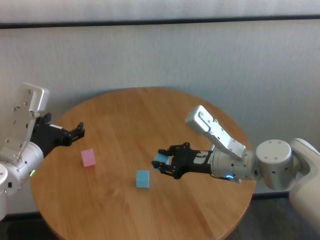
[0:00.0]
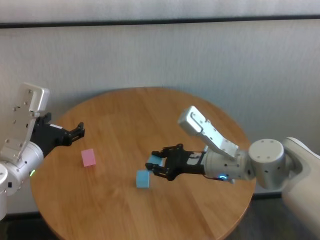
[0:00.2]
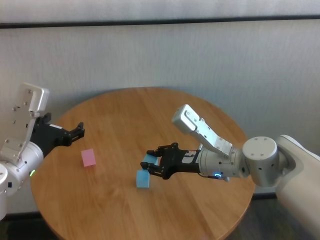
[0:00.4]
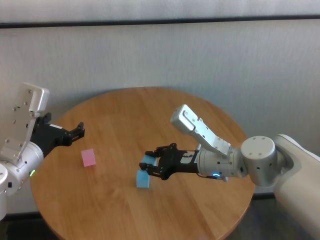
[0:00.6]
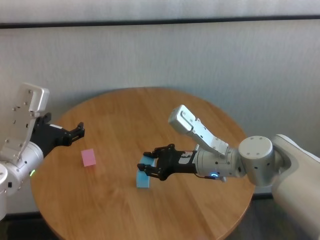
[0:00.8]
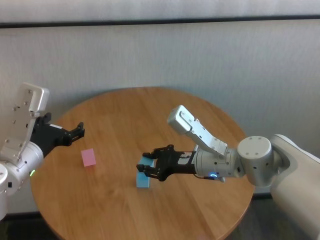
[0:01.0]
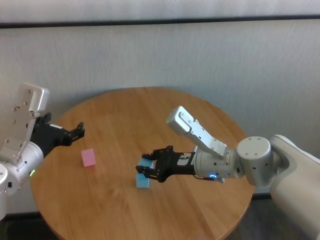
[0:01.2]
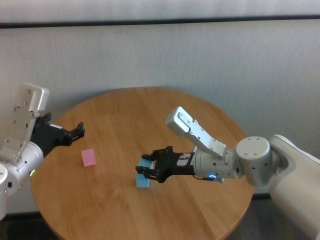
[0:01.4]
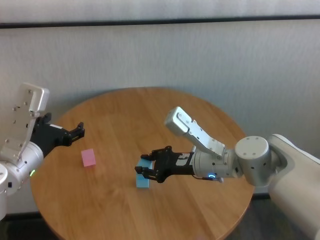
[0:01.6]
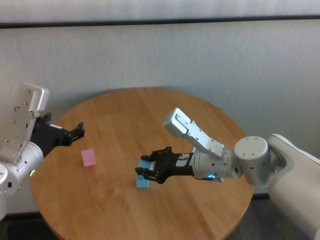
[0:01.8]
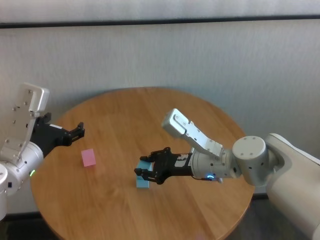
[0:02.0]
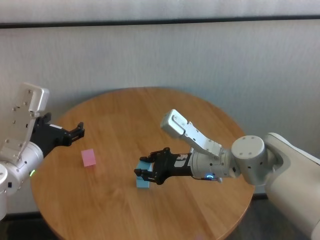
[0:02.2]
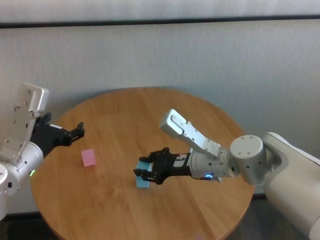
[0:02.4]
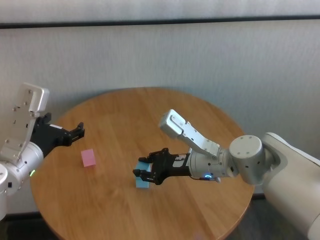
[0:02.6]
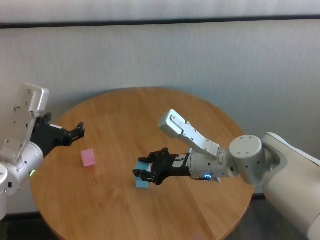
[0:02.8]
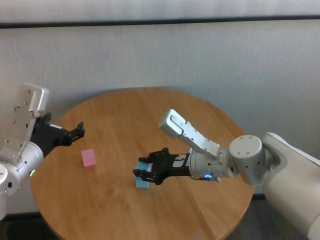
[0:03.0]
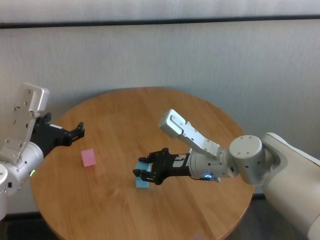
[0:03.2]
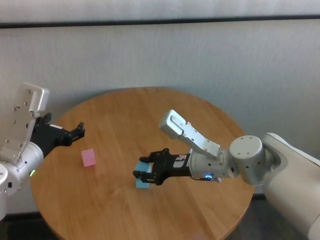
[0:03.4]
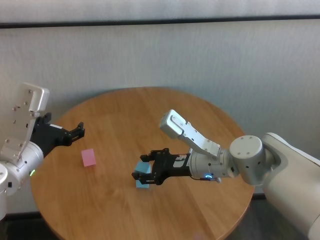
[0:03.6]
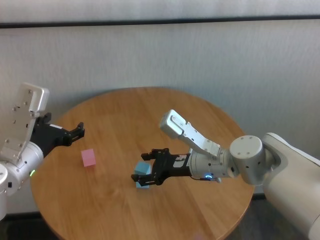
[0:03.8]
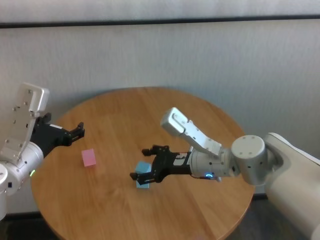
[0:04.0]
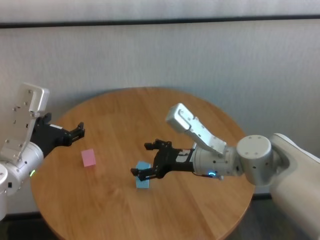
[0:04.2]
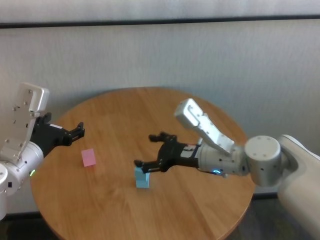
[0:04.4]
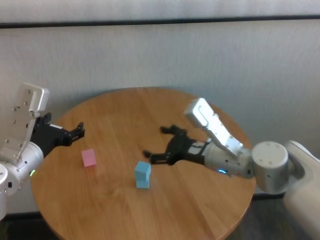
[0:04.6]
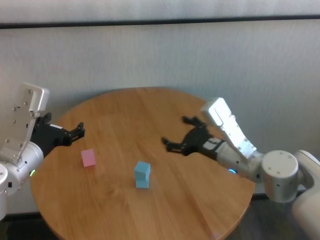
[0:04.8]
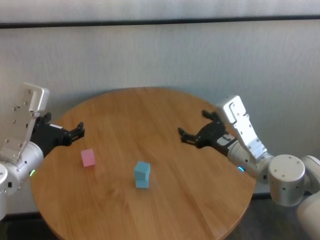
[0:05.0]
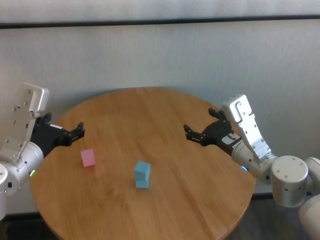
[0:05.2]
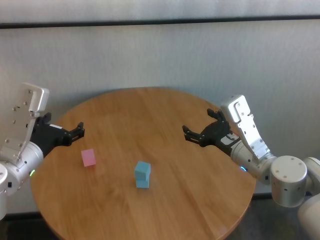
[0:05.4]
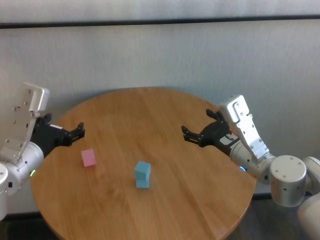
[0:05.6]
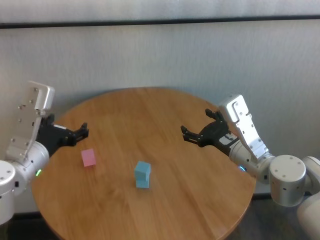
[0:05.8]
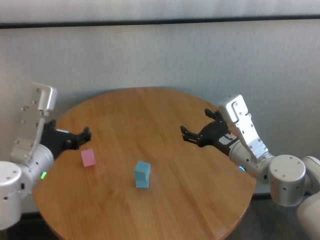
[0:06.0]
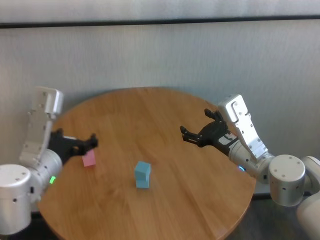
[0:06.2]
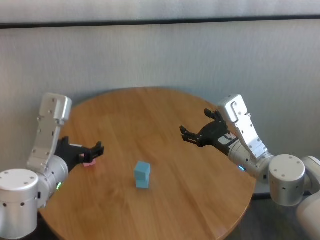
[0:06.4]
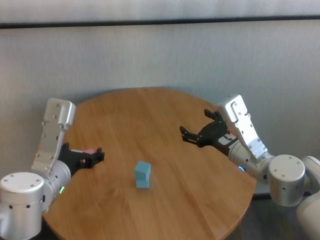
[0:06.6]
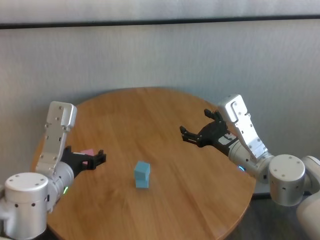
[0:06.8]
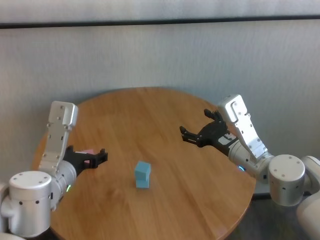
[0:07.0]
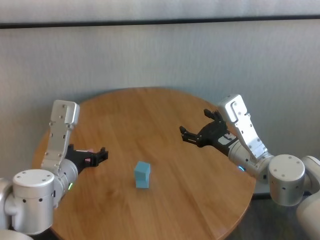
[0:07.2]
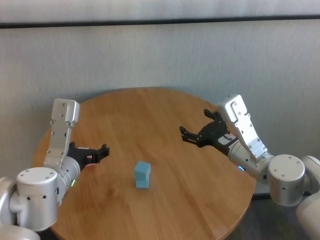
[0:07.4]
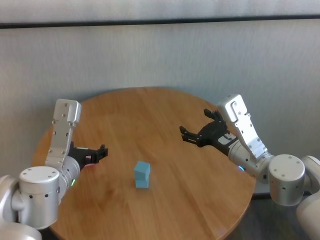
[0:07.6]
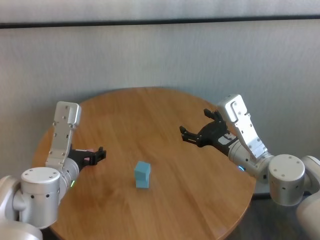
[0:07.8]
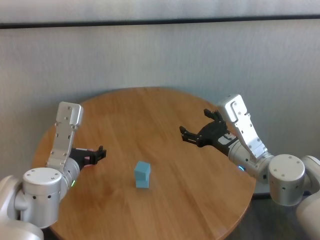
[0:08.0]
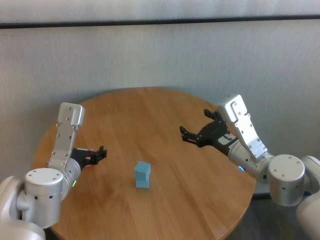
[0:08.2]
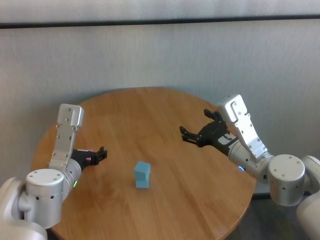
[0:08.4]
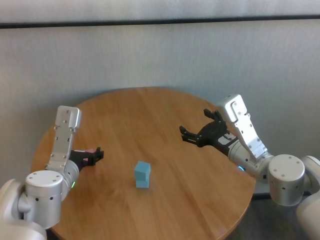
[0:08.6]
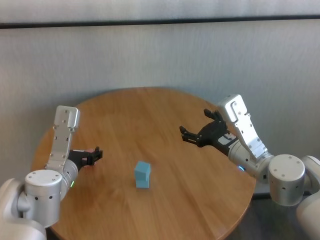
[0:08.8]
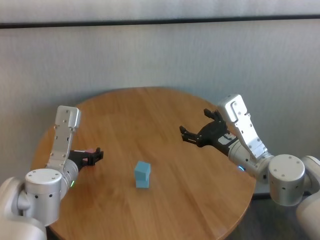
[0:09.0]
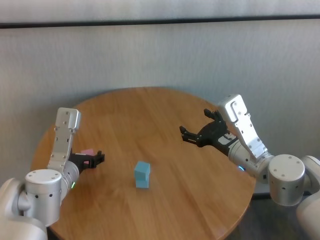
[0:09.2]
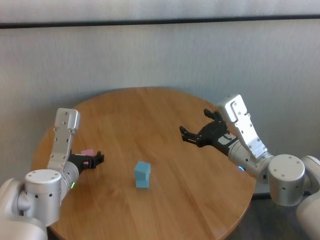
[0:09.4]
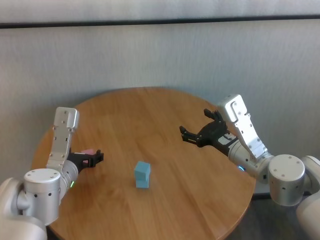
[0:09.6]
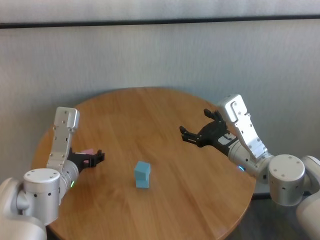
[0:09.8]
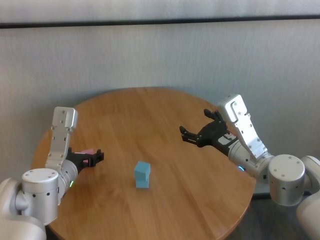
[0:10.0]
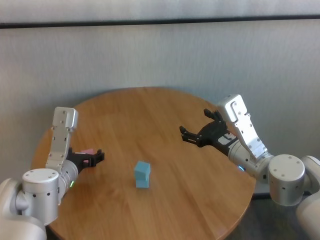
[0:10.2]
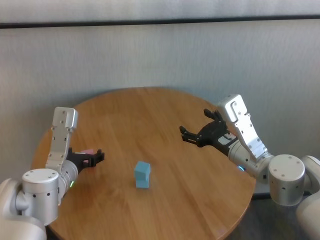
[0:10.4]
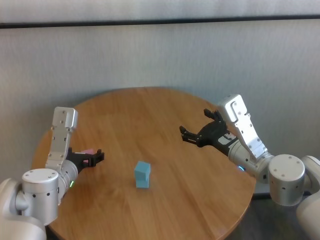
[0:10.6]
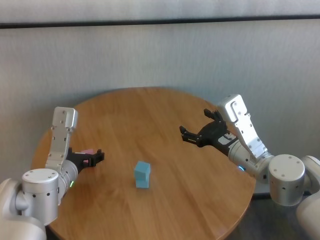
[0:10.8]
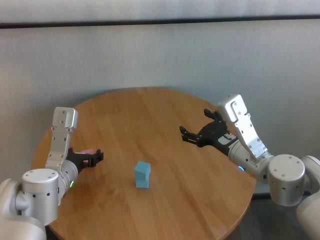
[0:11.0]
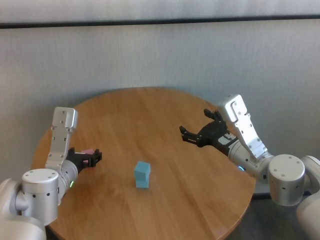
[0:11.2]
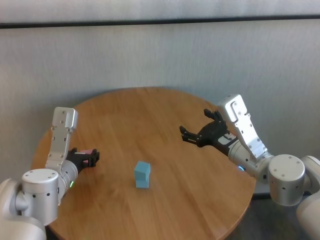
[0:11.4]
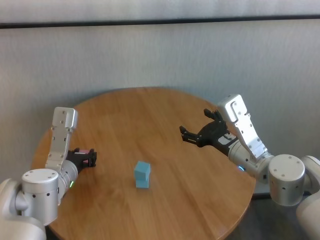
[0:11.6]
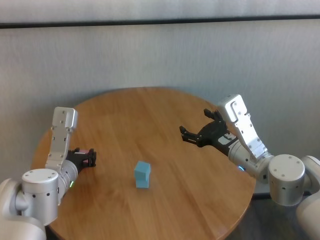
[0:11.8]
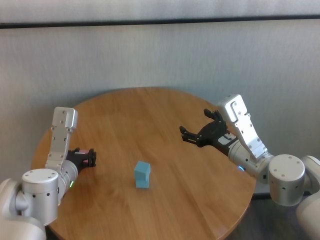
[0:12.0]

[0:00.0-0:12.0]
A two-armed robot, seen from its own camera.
Task of the whole recording: stack building blocks on the table.
Step, 0:00.0 to 0:03.6: Place the blue building block on the blue building blocks with right gripper.
Step, 0:03.8 to 0:11.6: Grasp the pink building block with left gripper.

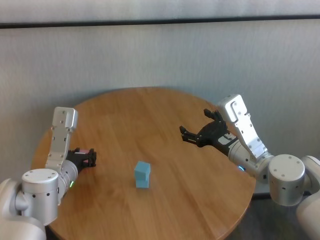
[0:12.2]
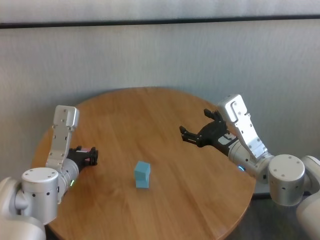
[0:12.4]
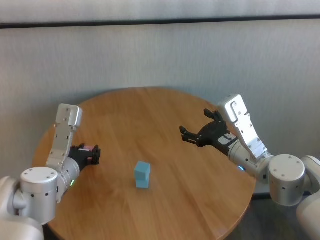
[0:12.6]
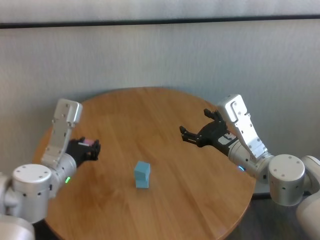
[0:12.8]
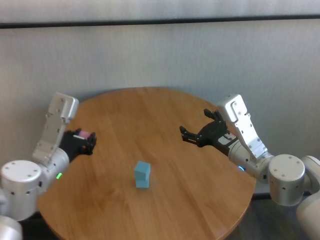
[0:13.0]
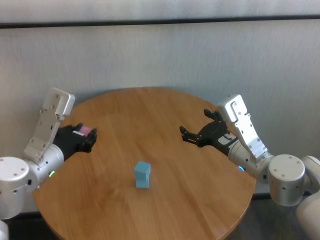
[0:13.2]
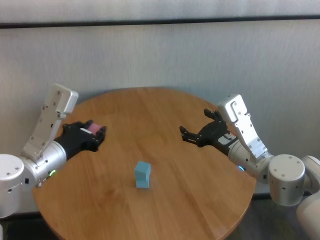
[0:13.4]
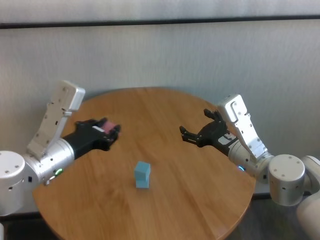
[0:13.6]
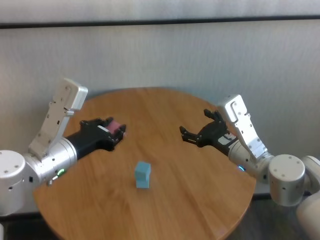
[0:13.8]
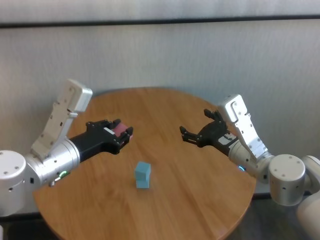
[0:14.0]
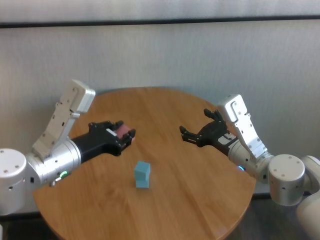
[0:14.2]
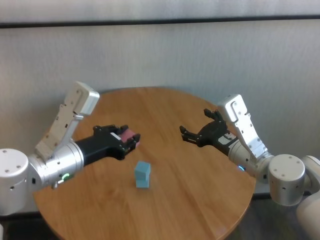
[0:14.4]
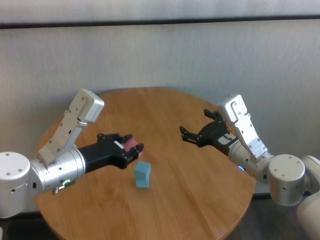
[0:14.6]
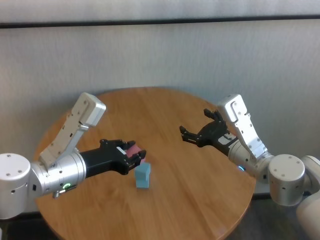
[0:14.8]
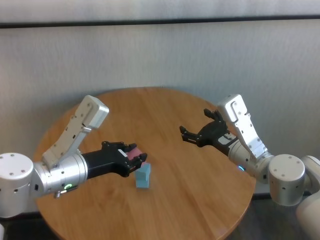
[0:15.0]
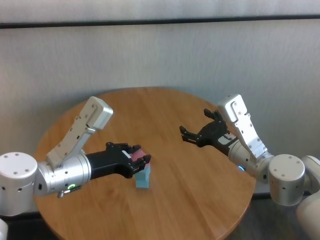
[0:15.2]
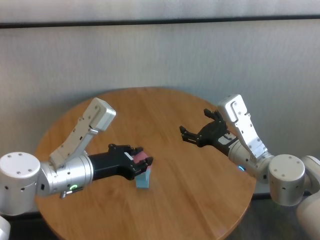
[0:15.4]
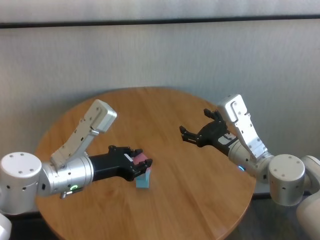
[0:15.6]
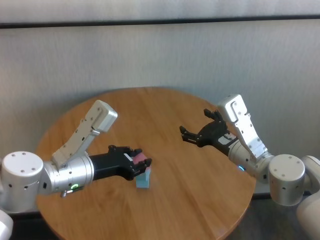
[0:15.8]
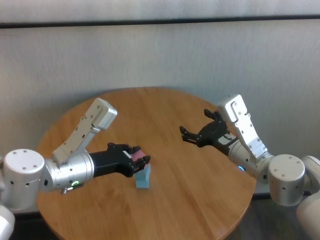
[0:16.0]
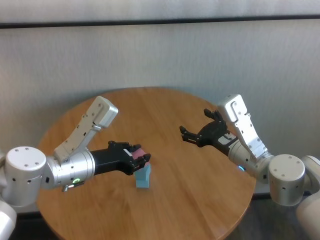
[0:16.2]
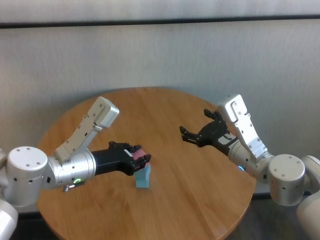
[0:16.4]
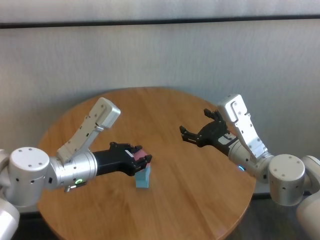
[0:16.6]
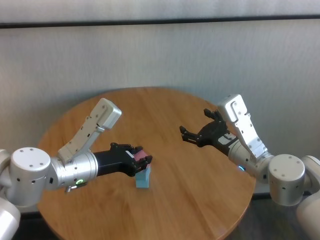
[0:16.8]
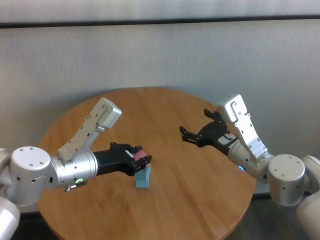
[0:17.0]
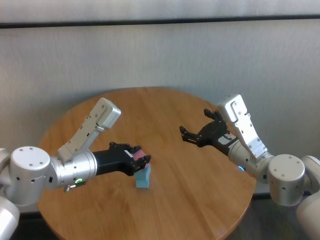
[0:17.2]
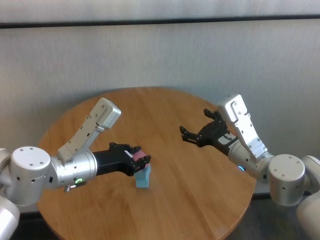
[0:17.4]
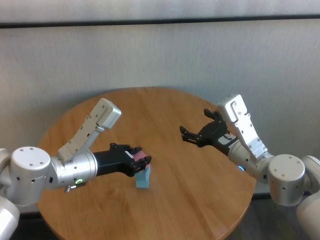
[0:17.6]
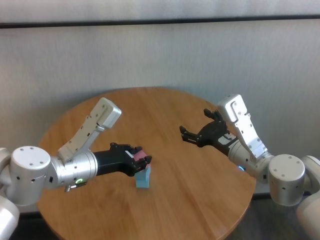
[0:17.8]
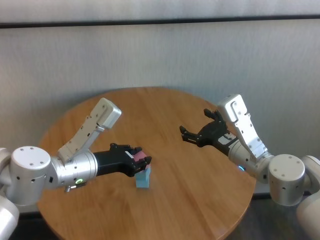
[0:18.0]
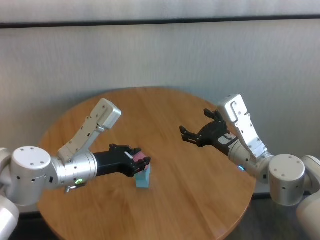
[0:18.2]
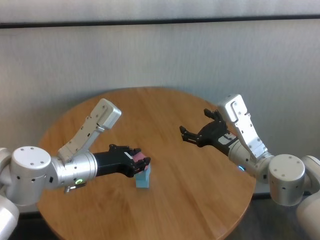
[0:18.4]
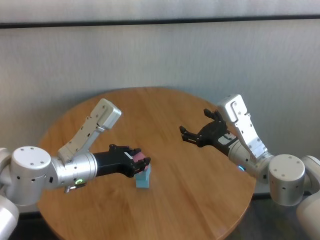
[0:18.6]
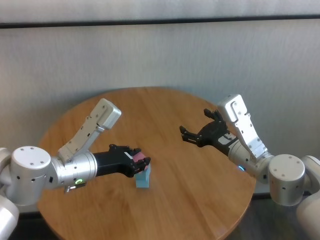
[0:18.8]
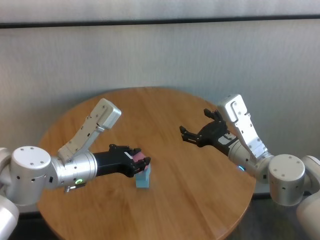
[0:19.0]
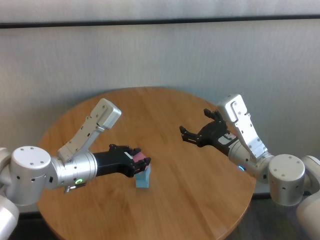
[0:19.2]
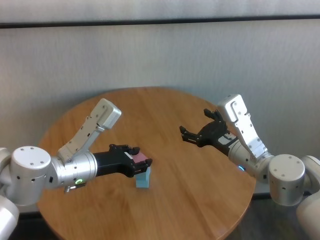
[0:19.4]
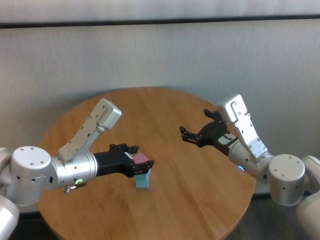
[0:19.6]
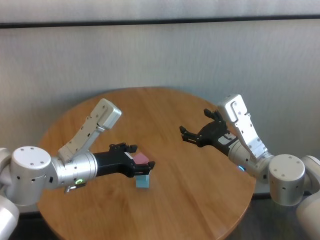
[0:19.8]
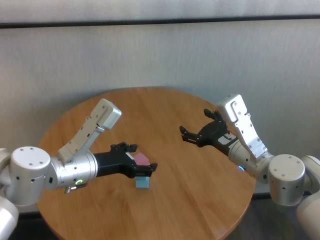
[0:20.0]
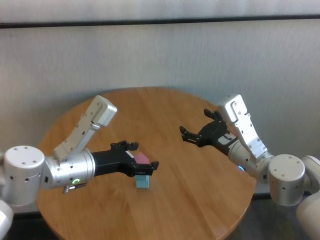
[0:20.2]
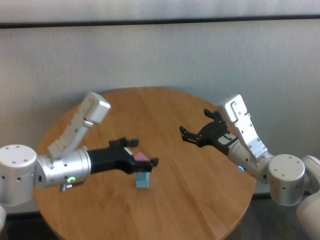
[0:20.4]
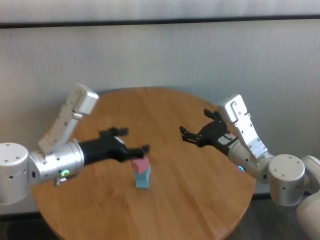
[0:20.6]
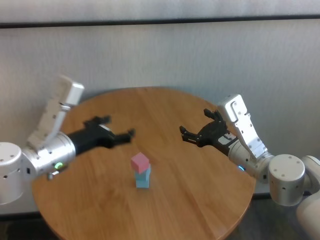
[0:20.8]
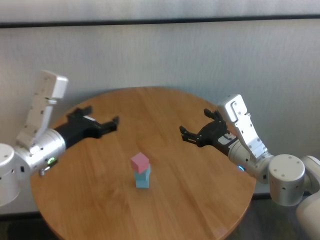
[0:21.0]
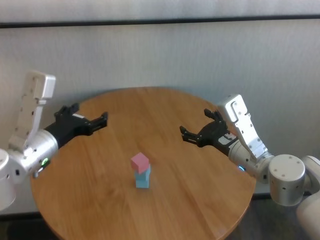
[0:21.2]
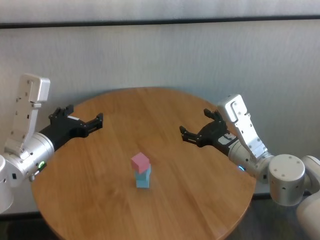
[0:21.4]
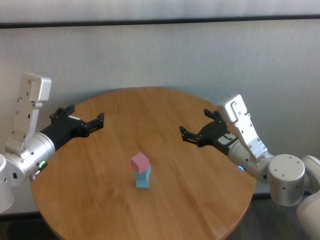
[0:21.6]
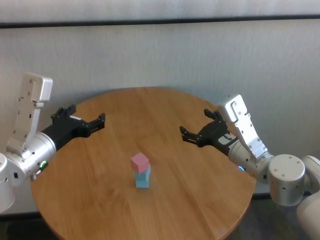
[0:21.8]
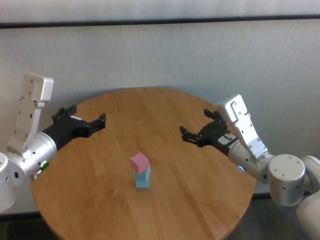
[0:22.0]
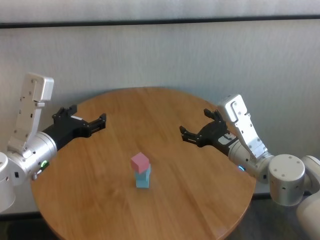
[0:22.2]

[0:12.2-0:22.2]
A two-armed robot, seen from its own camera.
Task of the whole recording: stack building blocks on the table.
Step, 0:12.2 to 0:19.4: Place the pink building block on the blue building blocks with left gripper.

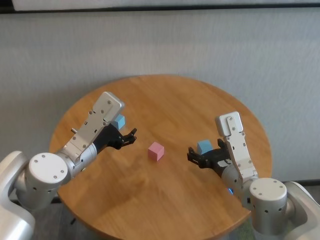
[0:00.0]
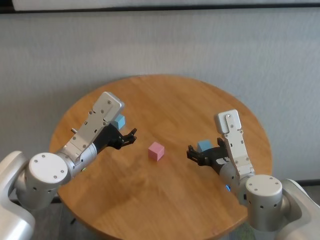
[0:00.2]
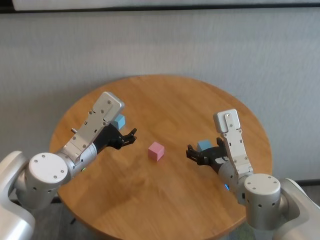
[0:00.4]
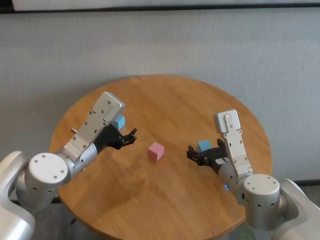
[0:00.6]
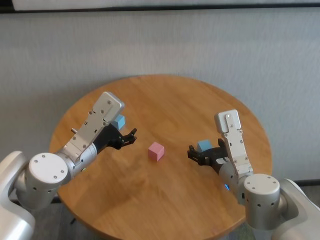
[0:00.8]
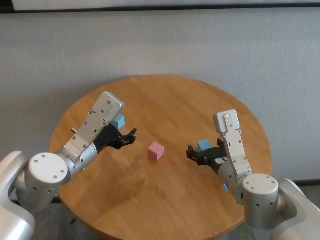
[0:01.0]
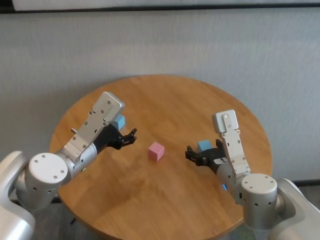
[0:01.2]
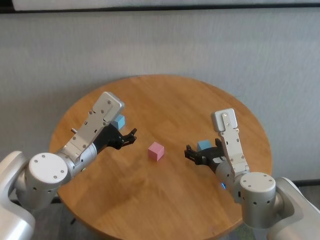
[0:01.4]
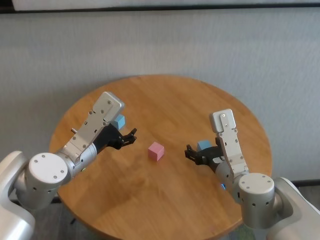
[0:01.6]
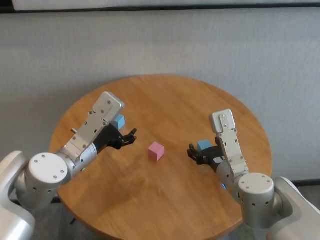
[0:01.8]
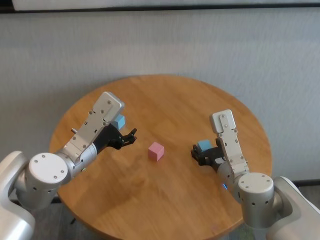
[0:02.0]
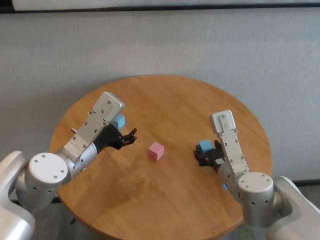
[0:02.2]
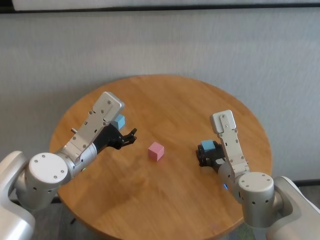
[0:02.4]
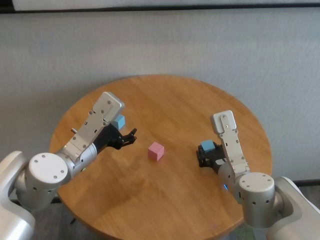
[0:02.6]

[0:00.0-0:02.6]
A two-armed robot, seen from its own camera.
Task of the whole recording: stack building blocks on the table.
Step, 0:00.0 to 0:02.4: Grasp the blue building block with right gripper.
